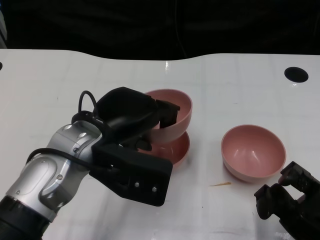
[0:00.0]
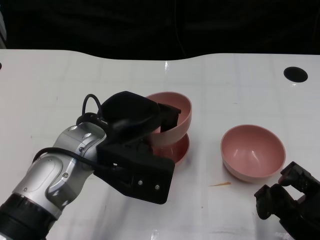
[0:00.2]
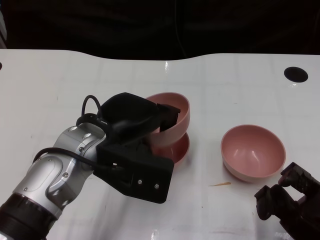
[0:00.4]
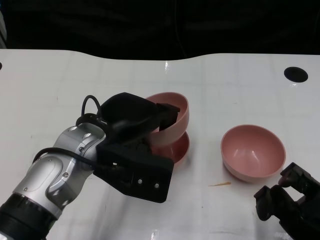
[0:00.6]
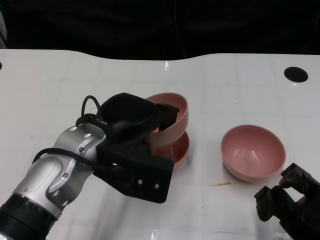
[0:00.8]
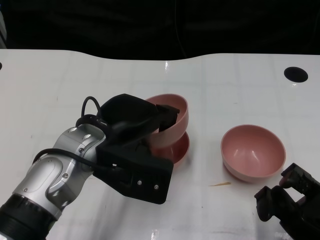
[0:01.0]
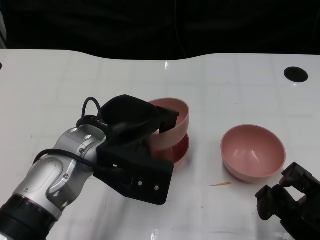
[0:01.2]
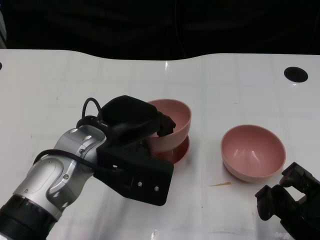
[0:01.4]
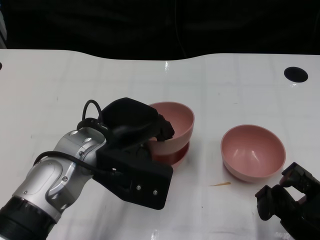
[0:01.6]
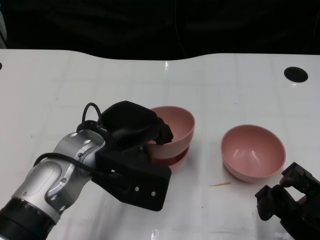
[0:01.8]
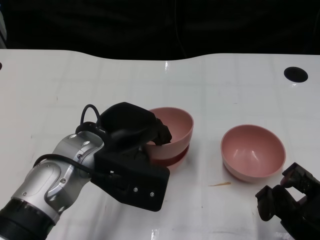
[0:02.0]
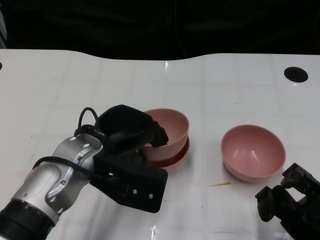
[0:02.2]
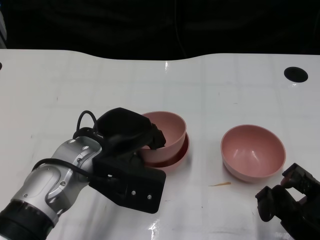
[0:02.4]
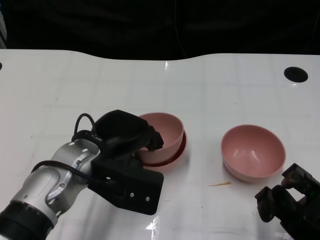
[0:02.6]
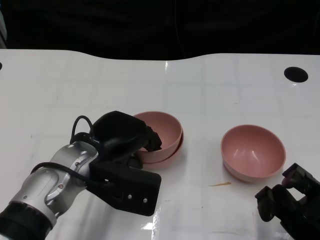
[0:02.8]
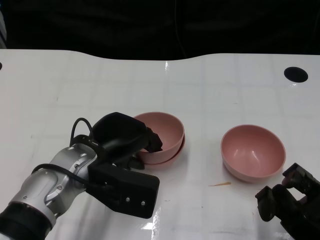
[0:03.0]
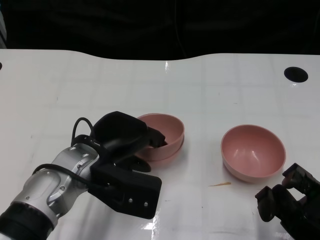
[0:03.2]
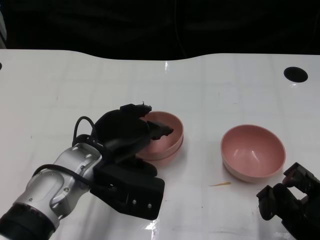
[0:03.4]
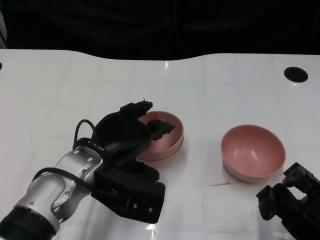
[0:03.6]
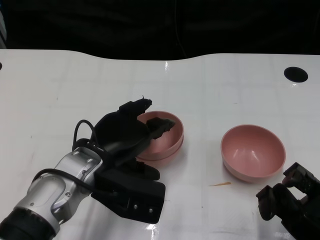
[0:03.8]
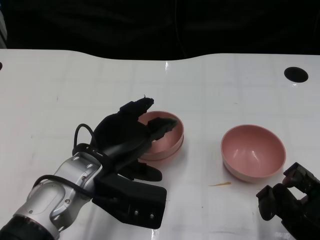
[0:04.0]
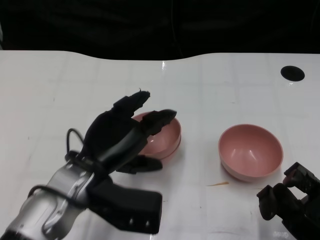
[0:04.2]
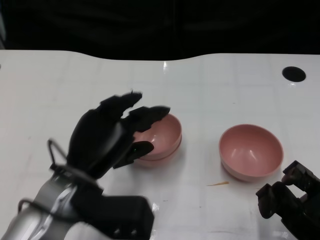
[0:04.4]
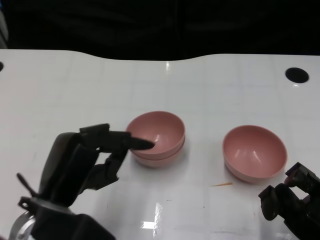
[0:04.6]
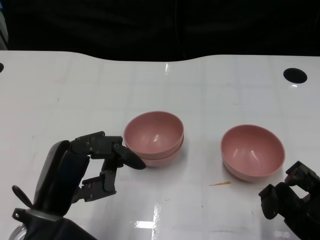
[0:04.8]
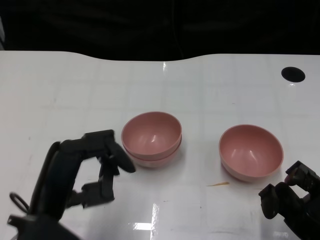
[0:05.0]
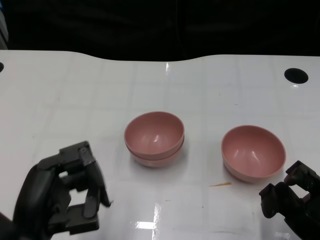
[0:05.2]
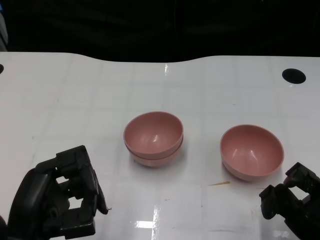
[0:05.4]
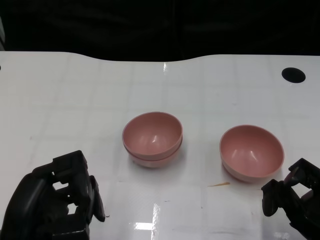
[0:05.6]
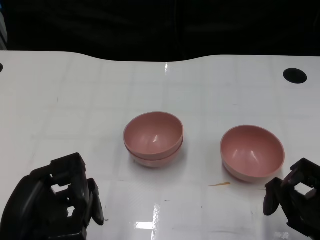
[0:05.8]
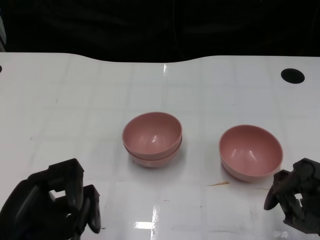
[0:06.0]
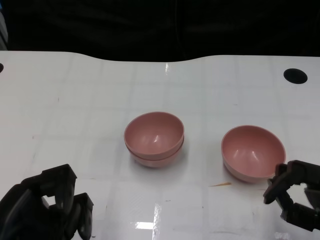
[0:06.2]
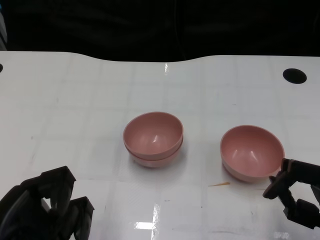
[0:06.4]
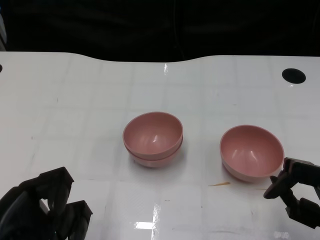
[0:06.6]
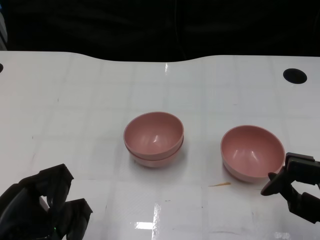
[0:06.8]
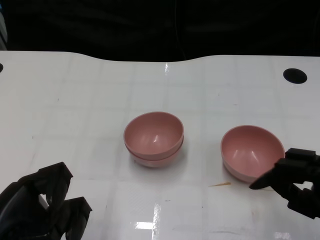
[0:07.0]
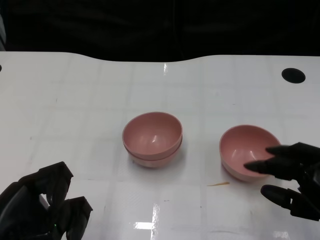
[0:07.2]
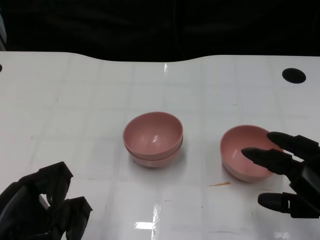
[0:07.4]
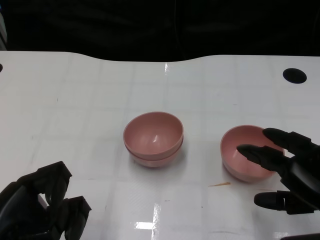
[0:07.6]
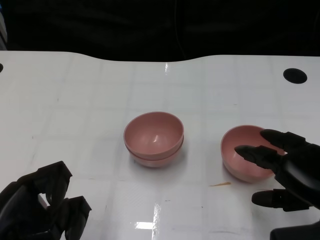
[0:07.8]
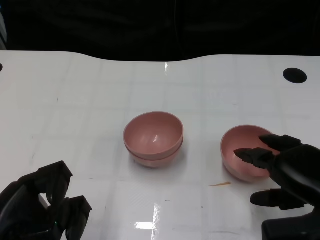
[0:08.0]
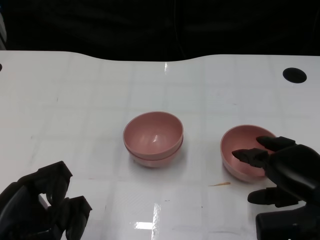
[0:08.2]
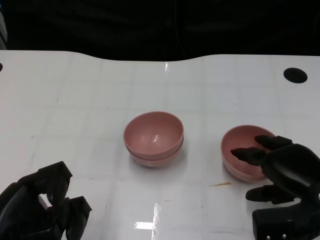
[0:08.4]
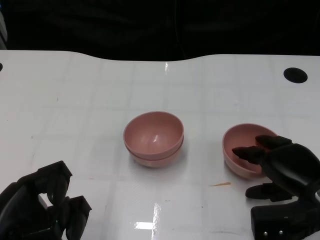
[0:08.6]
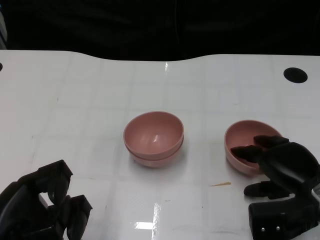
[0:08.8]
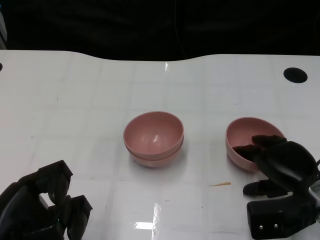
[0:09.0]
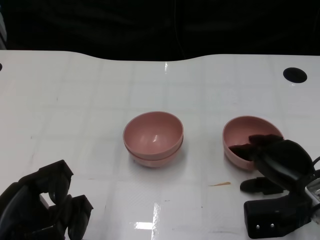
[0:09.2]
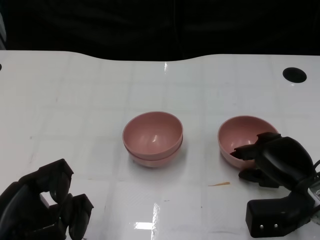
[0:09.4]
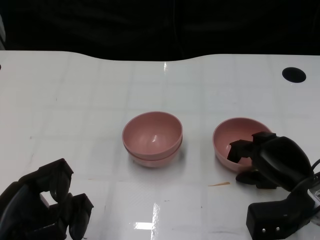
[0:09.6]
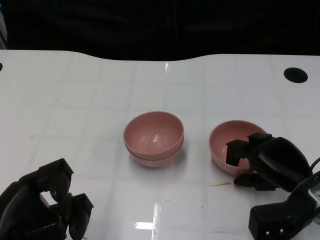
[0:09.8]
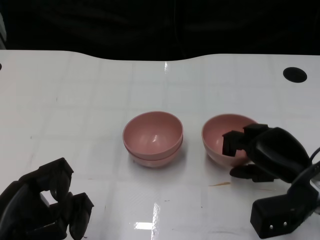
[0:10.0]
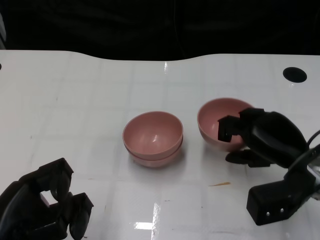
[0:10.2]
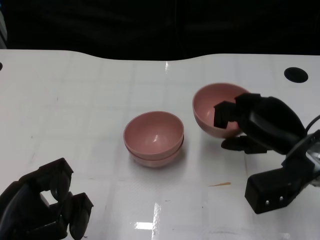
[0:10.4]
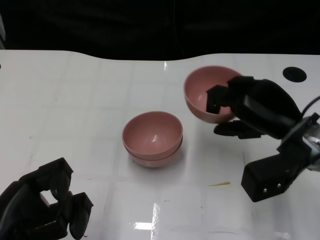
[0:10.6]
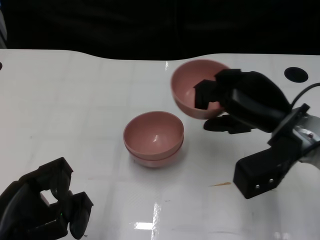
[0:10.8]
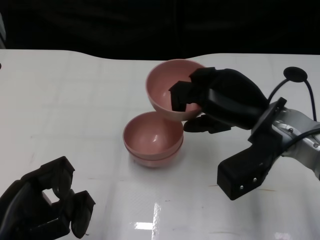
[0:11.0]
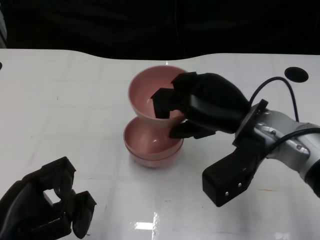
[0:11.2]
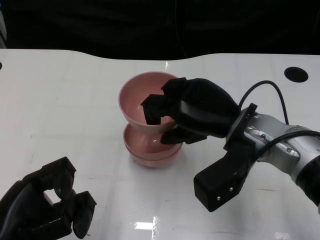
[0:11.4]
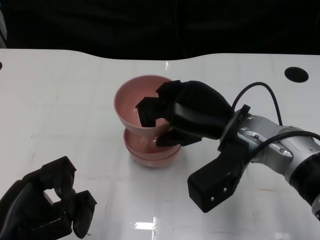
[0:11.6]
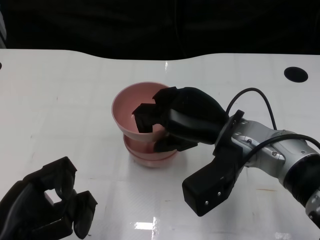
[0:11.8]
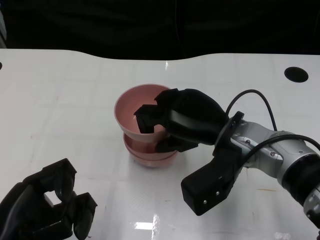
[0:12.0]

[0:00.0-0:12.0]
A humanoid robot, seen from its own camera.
Task of the whole recording: Pick up the bowl on one side of the table and place it on top of the middle bowl, then pick up the bowl on the other side of the table and place it on top of the middle bowls.
Step, 0.0 to 3.6 s: Place the bowl on the left onto the bowl in the middle with left gripper.
Step, 3.8 to 10.2 s: Grasp the bowl on the right with the right gripper.
0.0 to 3.0 s: The hands stay close to where they were, moving slightly.
4.4 to 6.0 s: The left hand goes approximately 15 cm backward and to the left.
6.0 to 7.6 s: The right hand shifts about 5 cm upward.
7.6 to 9.0 s: The right hand goes some 10 cm forward and downward.
9.0 to 10.4 s: The right hand ends up some 5 cm from where it was.
10.4 to 12.0 s: The right hand goes about 10 cm to the left.

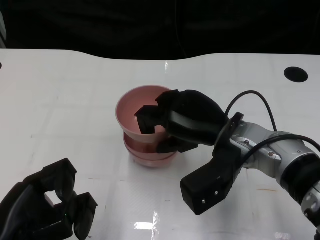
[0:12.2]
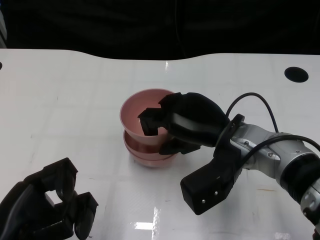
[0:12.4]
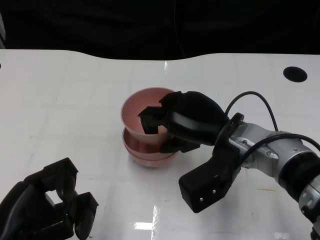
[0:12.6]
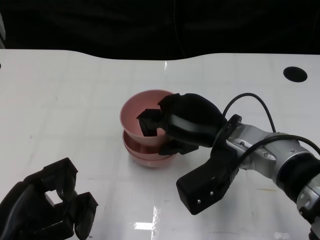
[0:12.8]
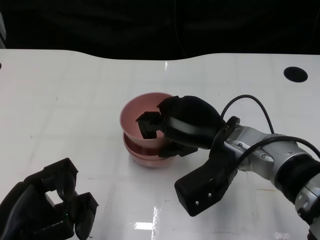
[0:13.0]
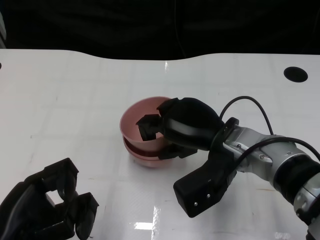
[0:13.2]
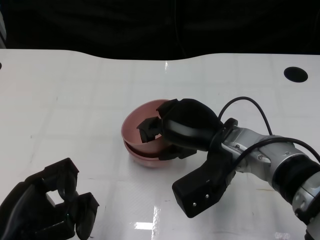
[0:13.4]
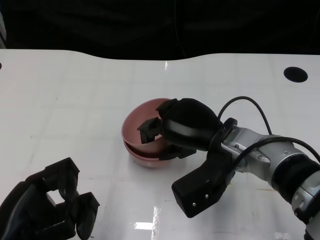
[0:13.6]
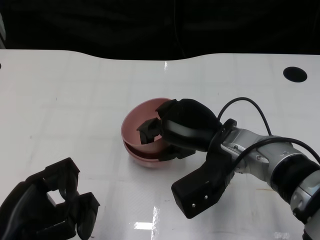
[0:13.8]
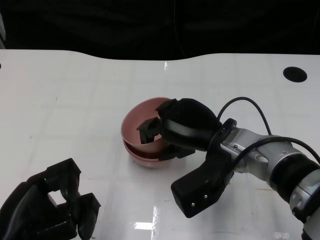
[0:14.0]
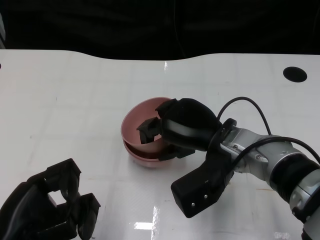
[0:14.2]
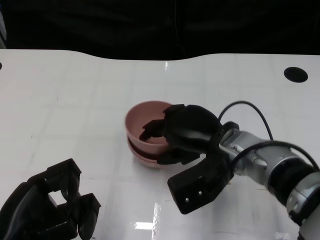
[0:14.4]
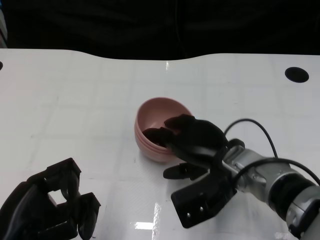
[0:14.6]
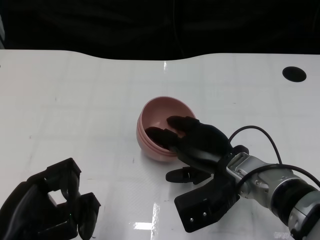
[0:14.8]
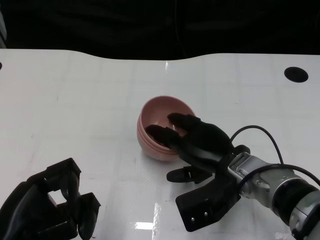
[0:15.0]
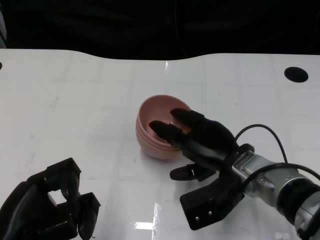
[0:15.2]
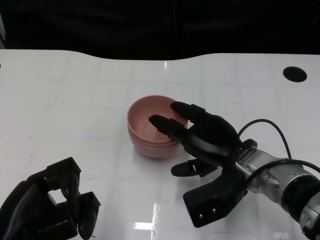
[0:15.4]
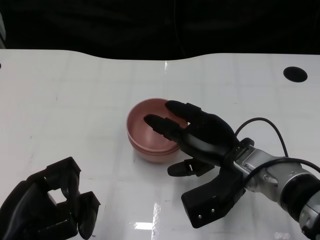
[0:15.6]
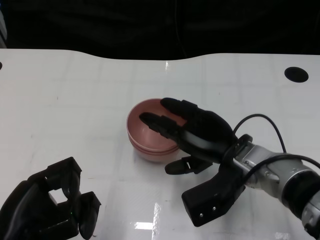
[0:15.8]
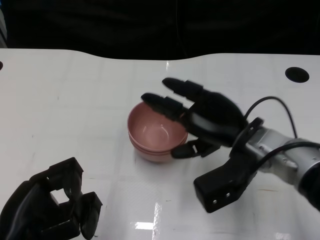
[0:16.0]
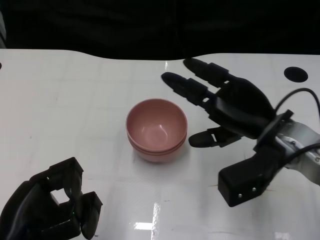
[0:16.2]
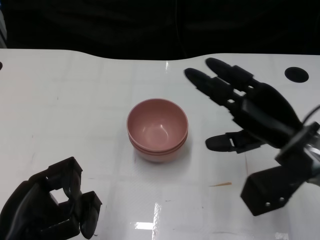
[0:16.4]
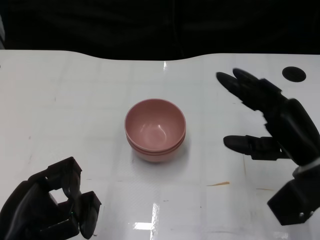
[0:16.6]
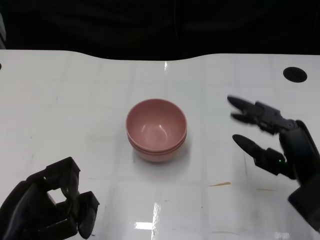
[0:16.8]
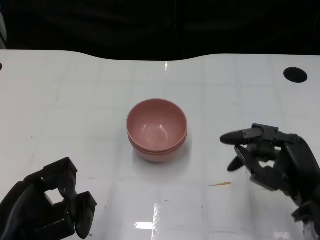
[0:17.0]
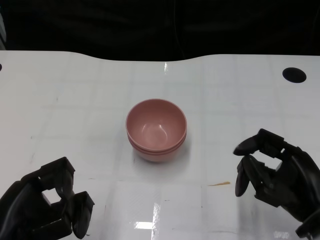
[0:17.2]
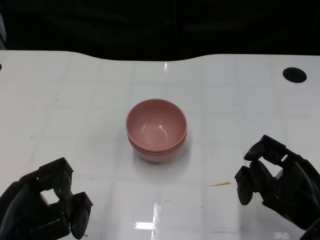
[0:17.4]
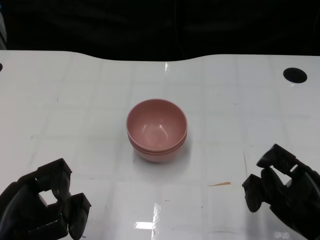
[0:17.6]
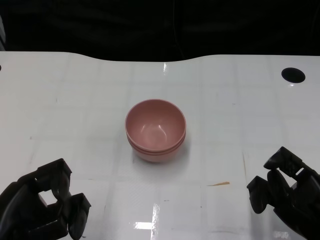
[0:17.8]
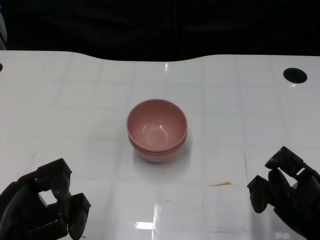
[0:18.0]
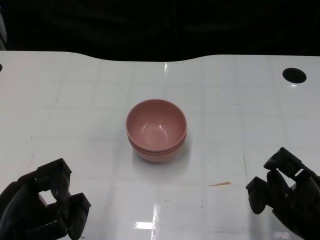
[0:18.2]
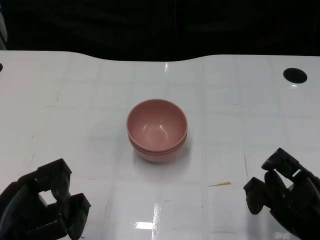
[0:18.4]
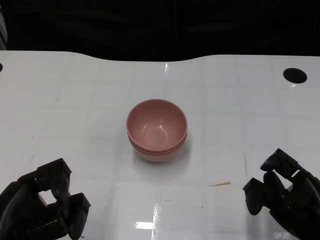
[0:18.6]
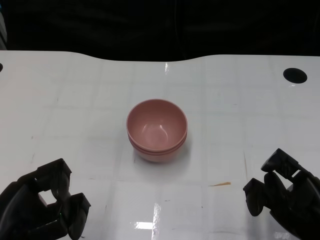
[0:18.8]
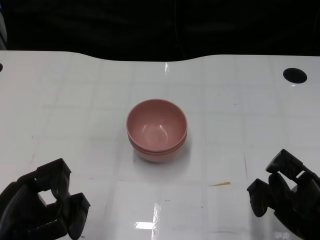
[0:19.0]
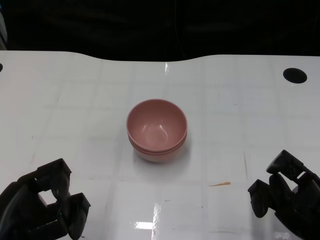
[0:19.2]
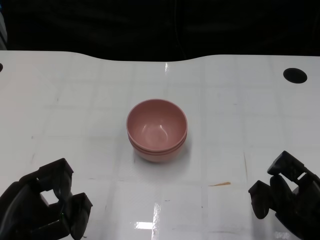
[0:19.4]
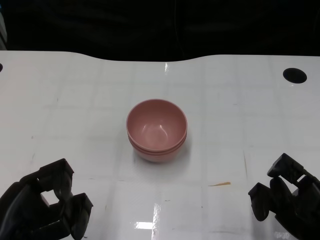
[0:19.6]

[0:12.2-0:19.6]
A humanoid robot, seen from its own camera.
Task of the whole recording: Pick up the bowl on one side of the table and place it on top of the middle bowl, then pick up the bowl on the other side of the table and place it on top of the middle bowls.
Step, 12.2 to 15.4 s: Place the bowl on the right onto the bowl in the middle with right gripper.
12.2 to 13.6 s: There are only small adjustments of the hands.
13.6 to 15.2 s: The right hand moves about 5 cm.
15.2 to 16.6 s: The right hand moves to the right, approximately 10 cm.
16.6 to 18.2 s: The right hand goes about 10 cm backward and downward.
18.2 to 19.6 s: The two hands keep their place.

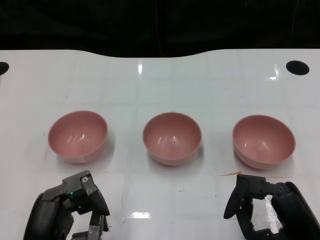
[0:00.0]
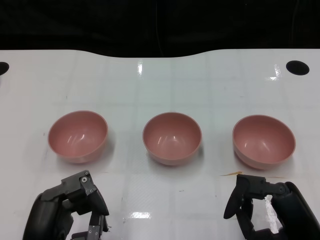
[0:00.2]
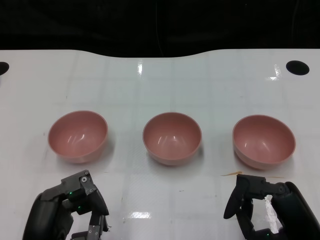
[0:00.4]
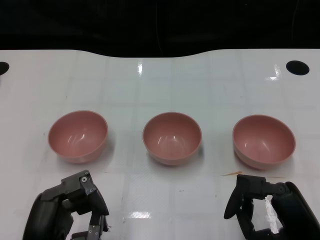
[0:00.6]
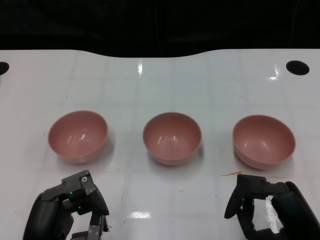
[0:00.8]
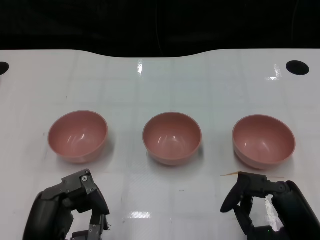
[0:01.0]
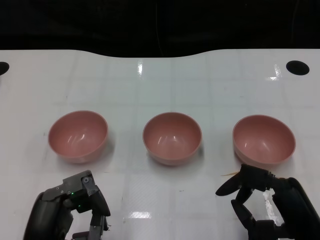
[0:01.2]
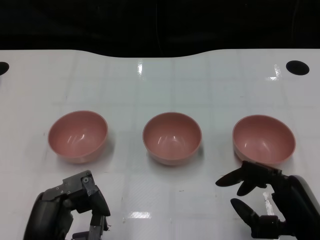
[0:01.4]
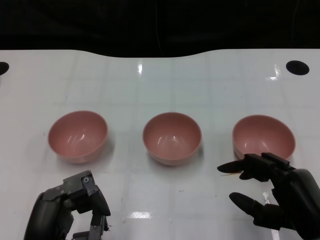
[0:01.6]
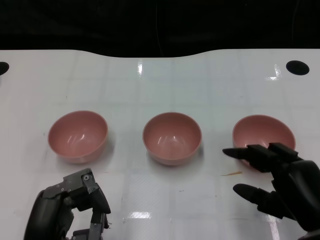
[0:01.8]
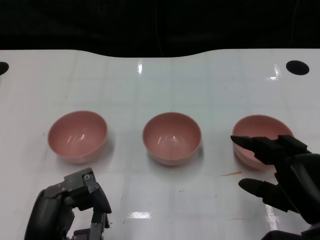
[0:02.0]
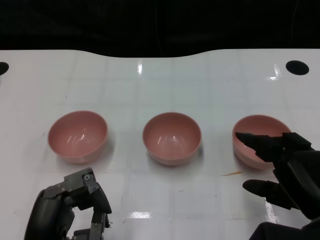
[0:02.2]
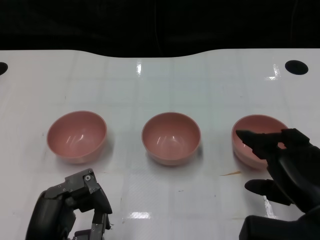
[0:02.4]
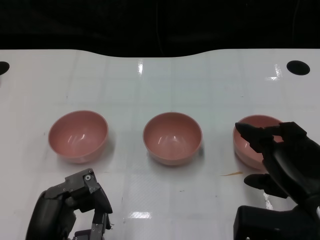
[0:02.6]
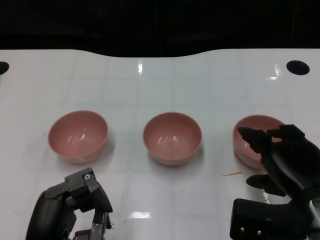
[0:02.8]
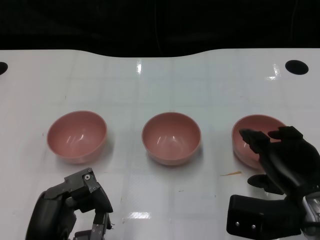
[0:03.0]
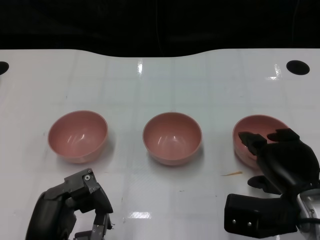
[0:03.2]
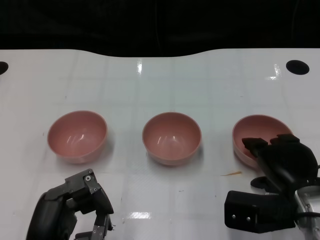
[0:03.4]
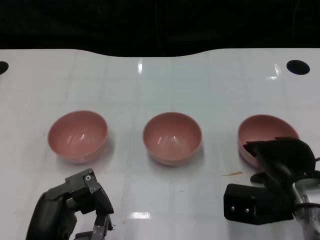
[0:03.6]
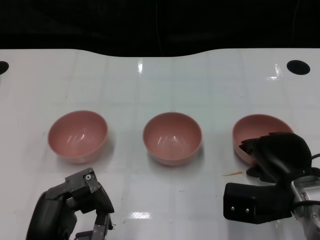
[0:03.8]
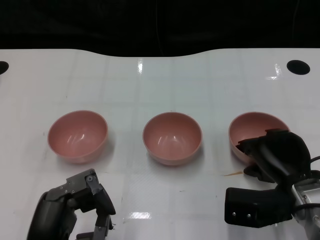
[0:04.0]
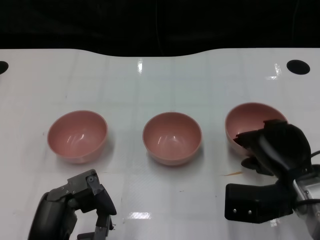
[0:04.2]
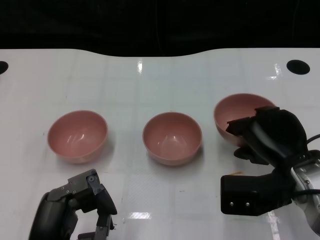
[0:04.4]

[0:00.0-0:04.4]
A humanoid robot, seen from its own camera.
Task of the whole recording: Pick up the bowl on one side of the table and place it on top of the middle bowl, then pick up the bowl on the other side of the table and place it on top of the middle bowls.
Step, 1.0 to 4.0 s: Grasp the bowl on the right with the right gripper.
1.4 to 3.0 s: The right hand goes approximately 5 cm forward.
3.0 to 4.4 s: The hands stay close to where they were, moving slightly.
